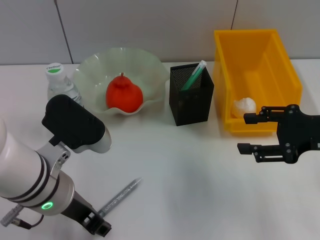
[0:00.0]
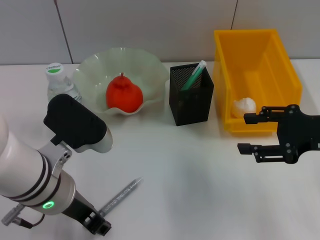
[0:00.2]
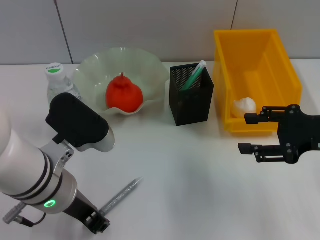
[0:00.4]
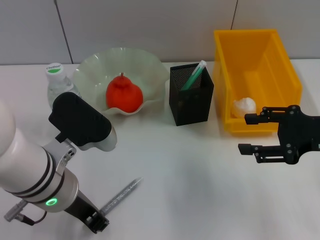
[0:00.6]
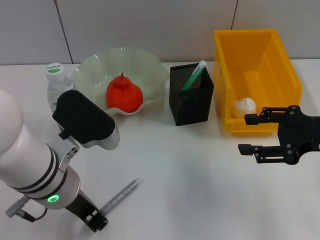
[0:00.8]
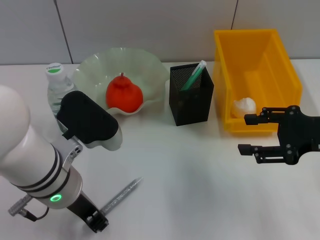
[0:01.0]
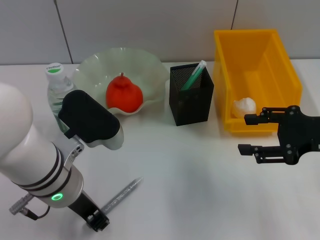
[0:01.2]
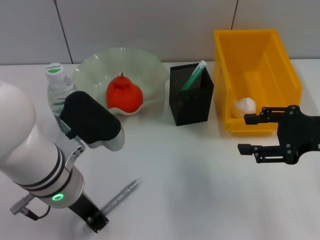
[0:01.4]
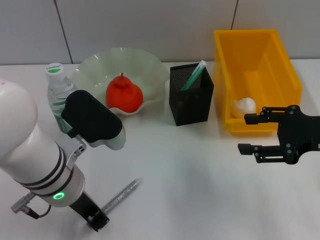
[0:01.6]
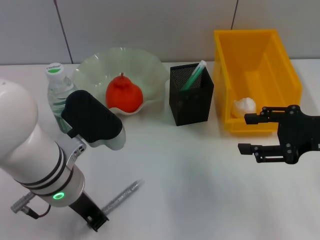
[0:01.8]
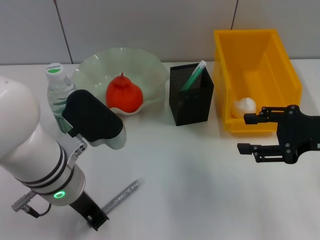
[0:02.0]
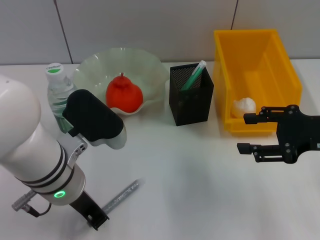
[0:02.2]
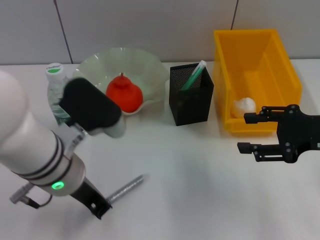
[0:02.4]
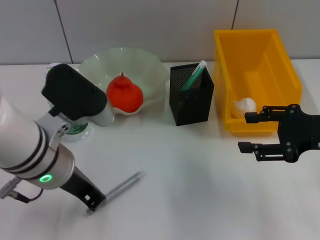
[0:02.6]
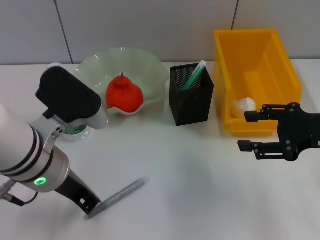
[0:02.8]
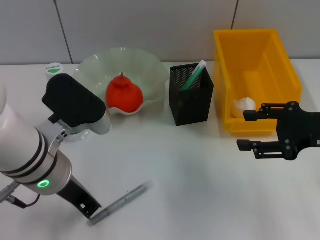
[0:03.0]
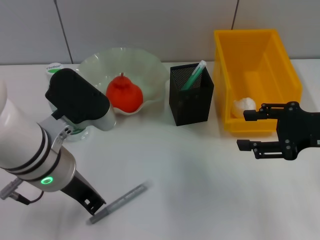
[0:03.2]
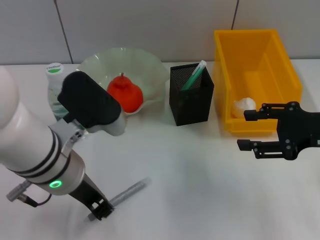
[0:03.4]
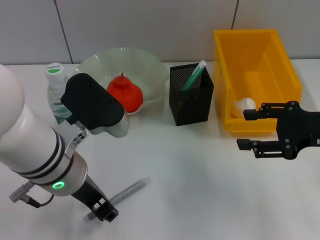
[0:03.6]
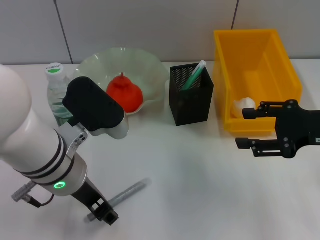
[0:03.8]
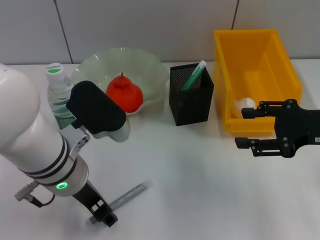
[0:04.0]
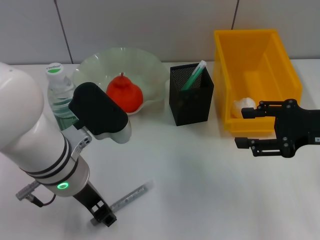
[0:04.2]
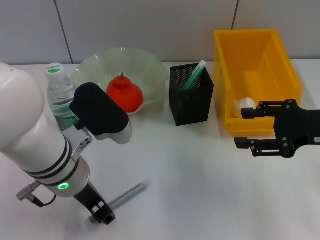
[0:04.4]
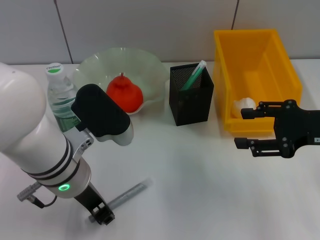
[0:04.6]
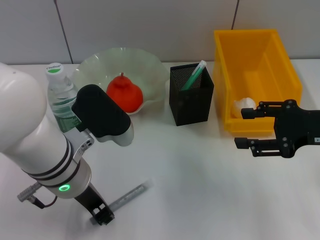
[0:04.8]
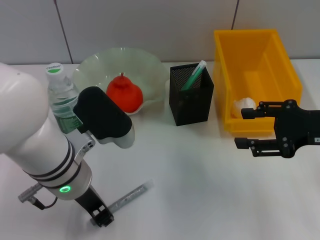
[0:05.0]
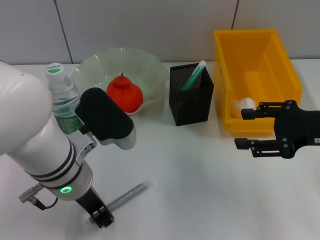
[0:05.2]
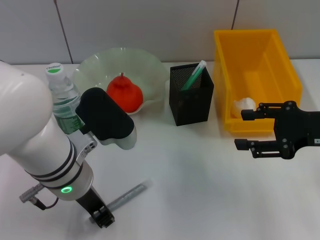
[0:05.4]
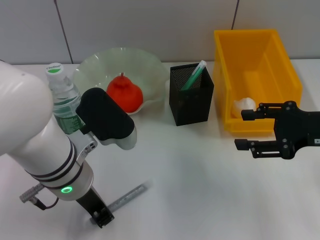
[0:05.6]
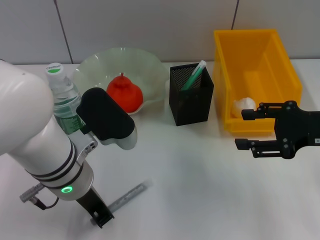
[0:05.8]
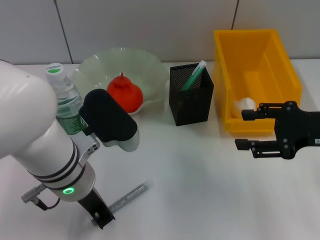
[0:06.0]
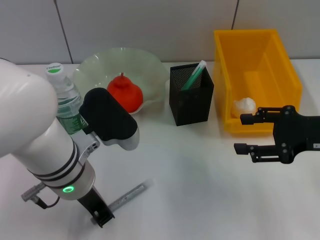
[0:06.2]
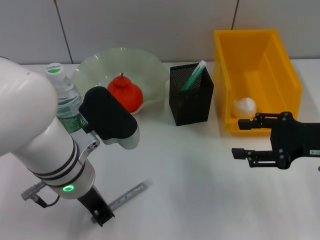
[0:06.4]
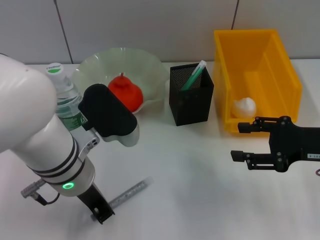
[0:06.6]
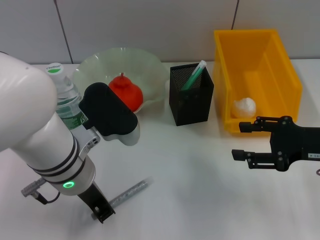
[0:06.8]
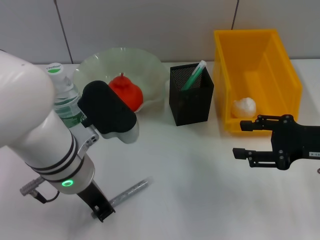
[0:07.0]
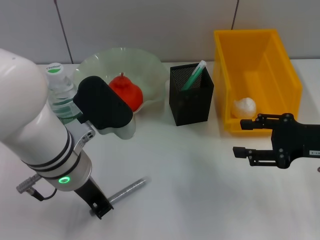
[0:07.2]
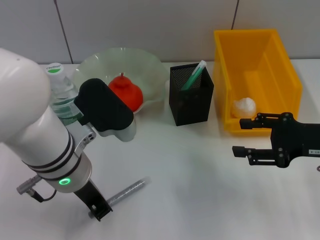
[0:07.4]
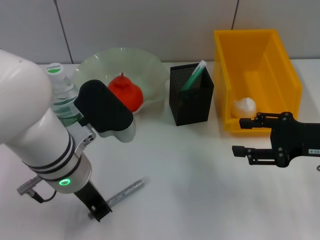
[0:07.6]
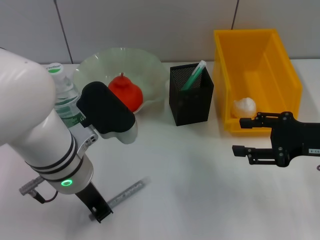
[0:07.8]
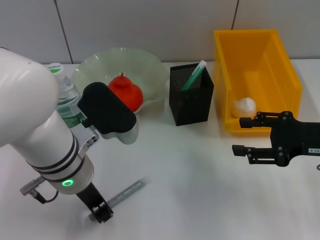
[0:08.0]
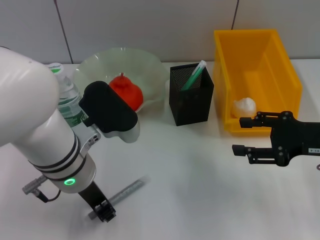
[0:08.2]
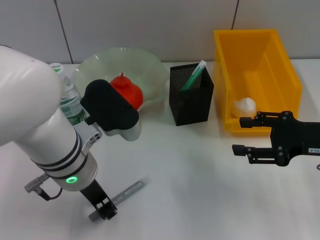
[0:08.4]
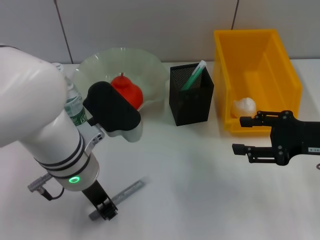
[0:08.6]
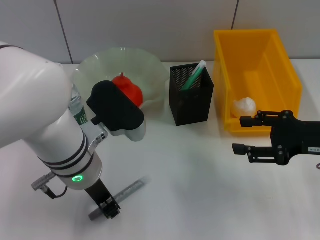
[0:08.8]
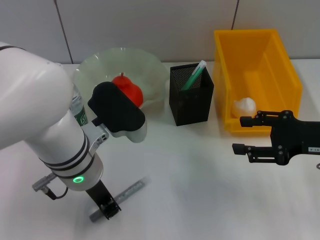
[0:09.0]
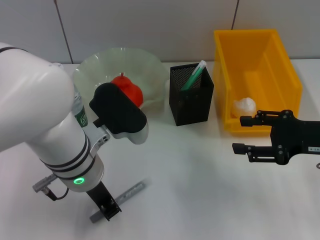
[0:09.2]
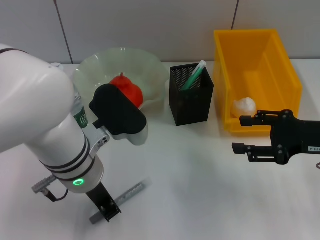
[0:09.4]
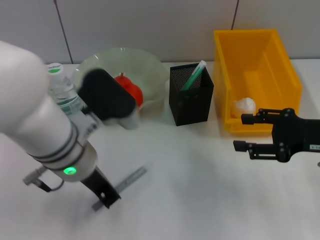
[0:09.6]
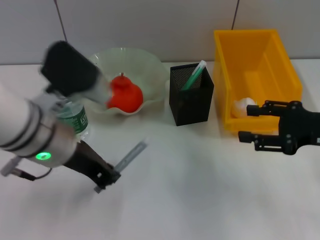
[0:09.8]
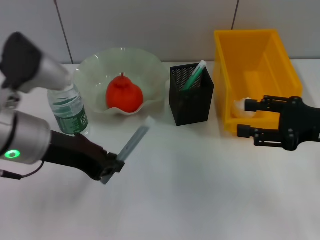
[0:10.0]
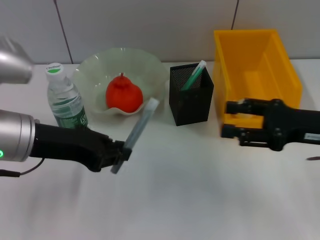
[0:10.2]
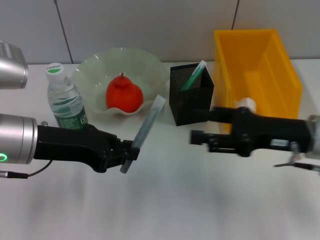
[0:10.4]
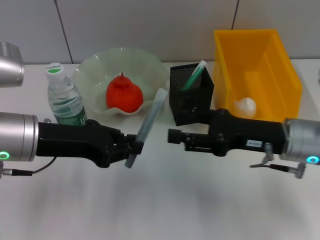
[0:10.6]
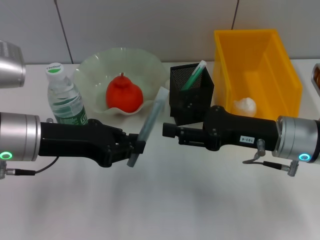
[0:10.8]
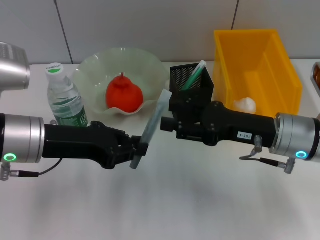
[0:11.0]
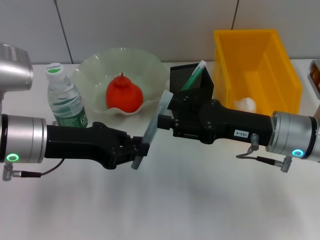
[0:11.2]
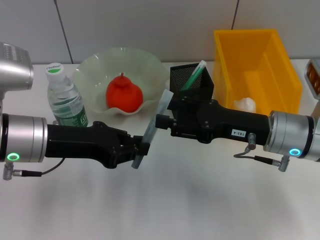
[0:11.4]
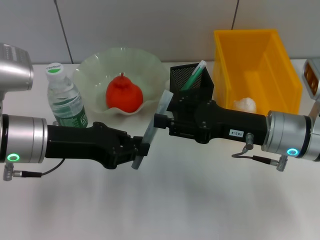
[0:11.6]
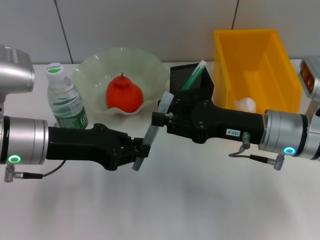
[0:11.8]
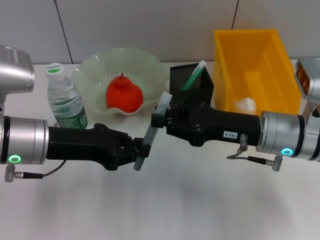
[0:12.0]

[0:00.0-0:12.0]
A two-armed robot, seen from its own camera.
Step, 0:00.0 to 0:09.0: Grab the gray glue with the left hand.
0:00.0 to 0:01.6: The left gripper closes its fingers.
0:01.6 to 0:03.0: The grippers stay close to where they were, moving slightly.
0:03.0 to 0:04.4: The left gripper opens up.
0:04.4 to 0:06.0: The left gripper closes its fingers.
0:06.0 to 0:09.0: The grippers make only small movements.
0:09.0 to 0:10.4: The left gripper shifts roughly 10 cm to the left, while the right gripper moves to the left, approximately 5 cm.
0:10.4 to 0:12.0: The right gripper moves to the left, approximately 5 cm.

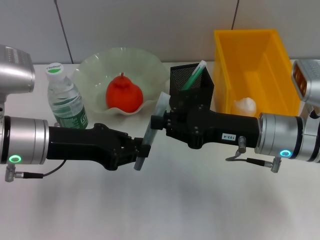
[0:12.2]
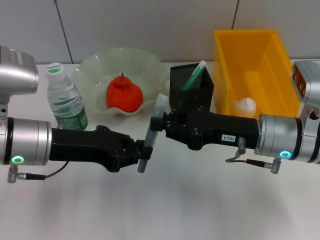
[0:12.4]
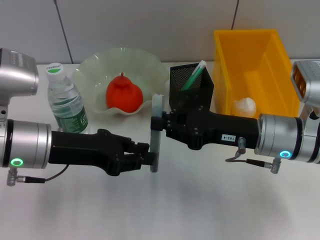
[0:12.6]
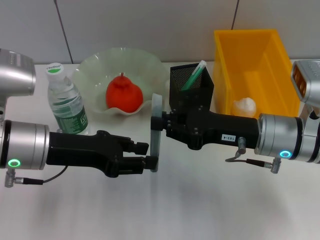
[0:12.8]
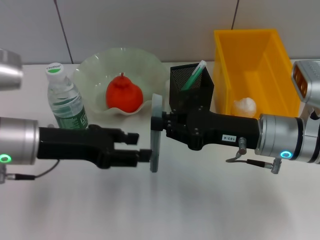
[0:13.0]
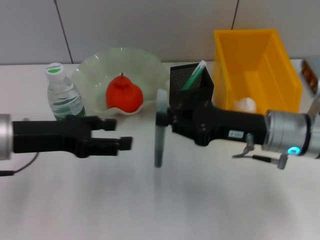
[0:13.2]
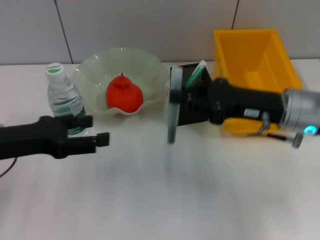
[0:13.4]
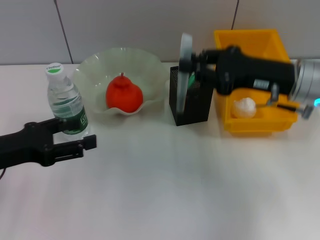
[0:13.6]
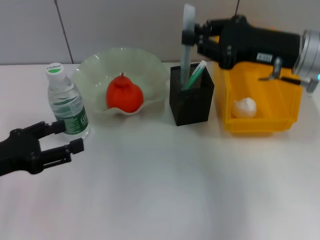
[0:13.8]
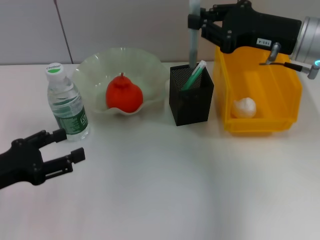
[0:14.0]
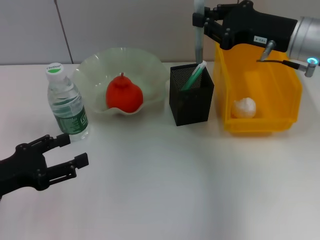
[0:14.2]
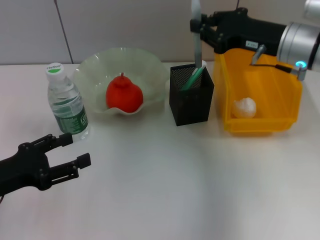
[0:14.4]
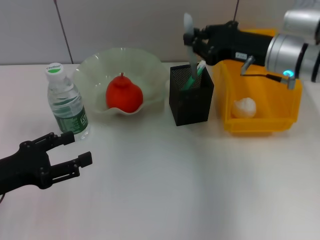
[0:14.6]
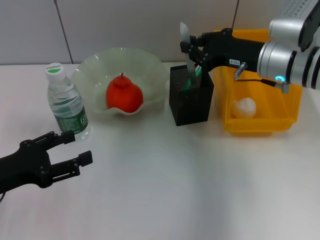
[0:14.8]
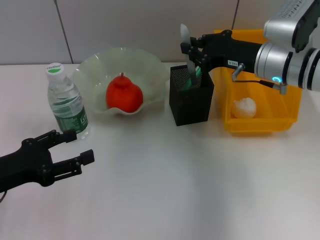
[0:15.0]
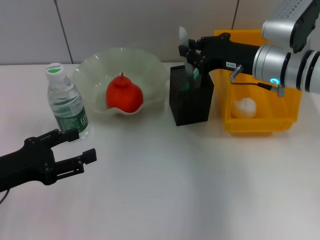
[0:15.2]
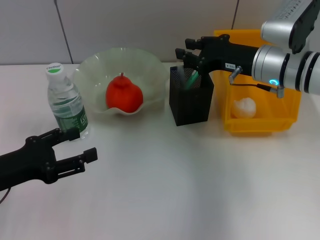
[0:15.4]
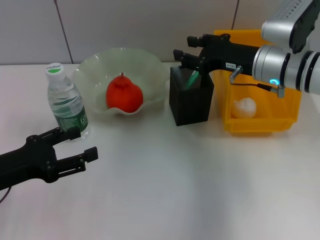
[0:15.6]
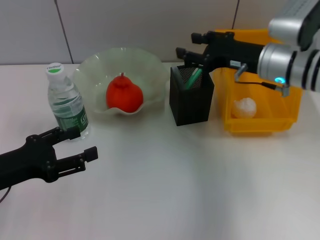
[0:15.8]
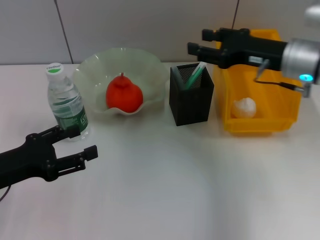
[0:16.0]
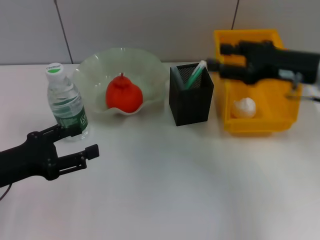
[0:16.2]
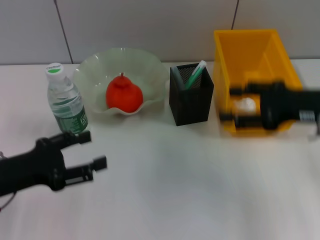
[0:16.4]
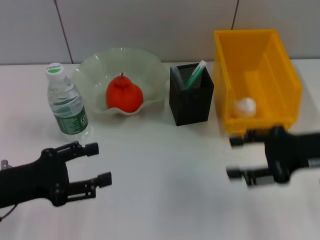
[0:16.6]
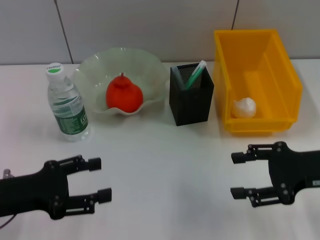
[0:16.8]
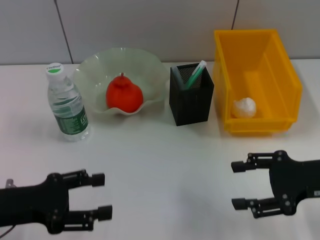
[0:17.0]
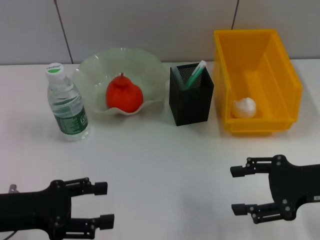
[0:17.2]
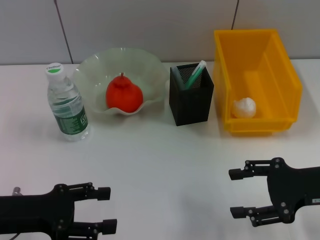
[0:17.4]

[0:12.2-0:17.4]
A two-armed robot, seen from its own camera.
Step, 0:13.0 to 0:15.4: Place the gray glue into the pen holder with the right hand.
0:12.2 to 0:14.0: The left gripper travels to the left, backward and downward by about 15 cm, and opens its fingers; the right gripper heads upward and forward, covering approximately 10 cm.
0:14.0 to 0:15.6: The right gripper travels downward by roughly 5 cm.
0:15.6 to 0:17.4: The right gripper travels backward and to the right by roughly 20 cm, and opens up.
